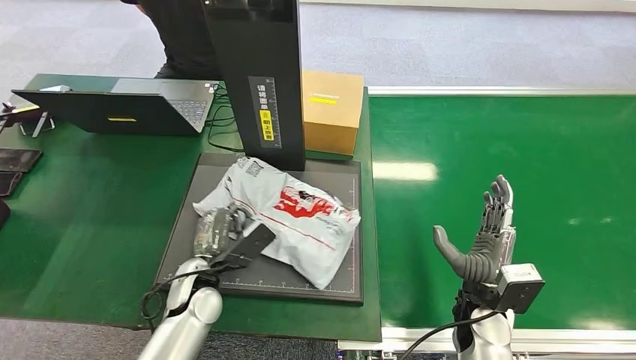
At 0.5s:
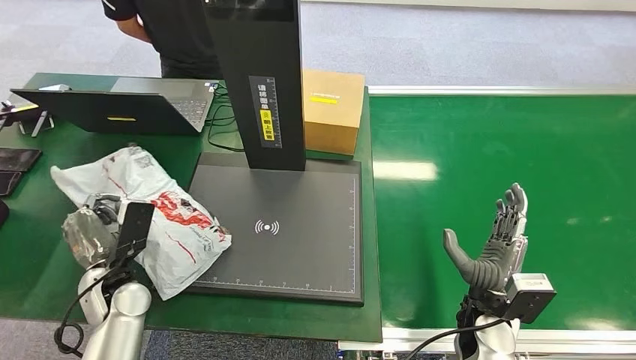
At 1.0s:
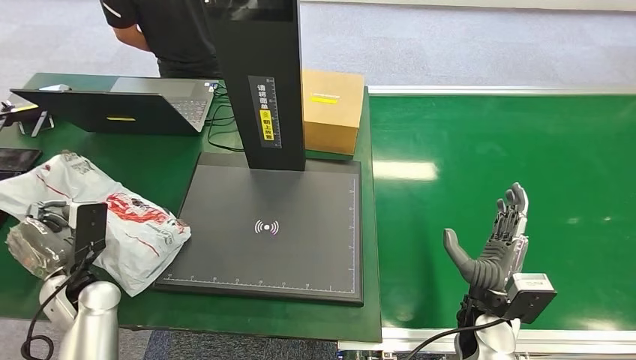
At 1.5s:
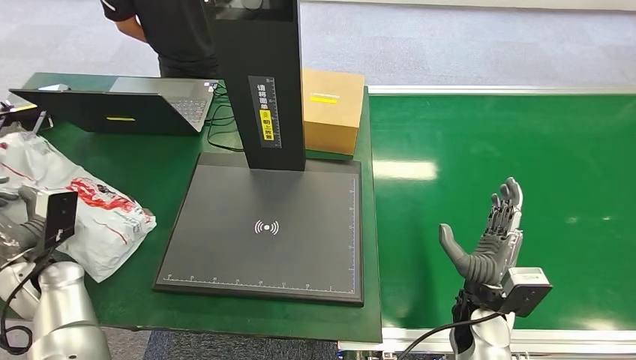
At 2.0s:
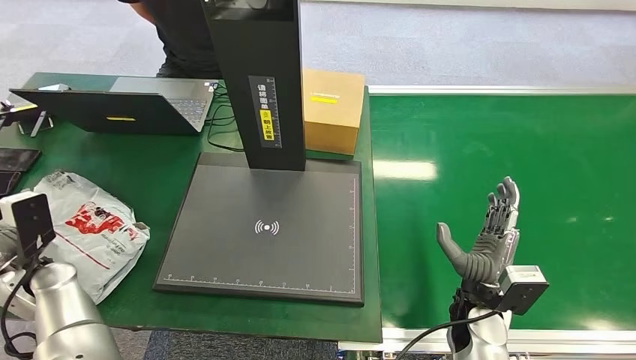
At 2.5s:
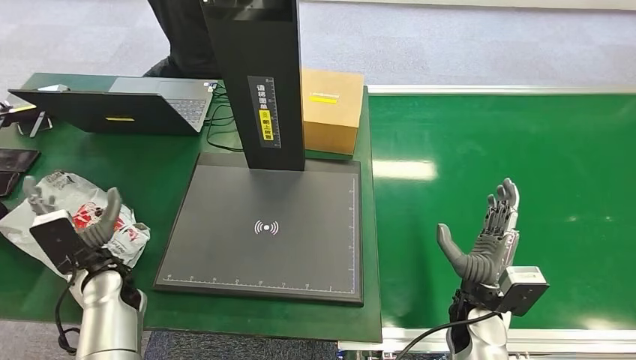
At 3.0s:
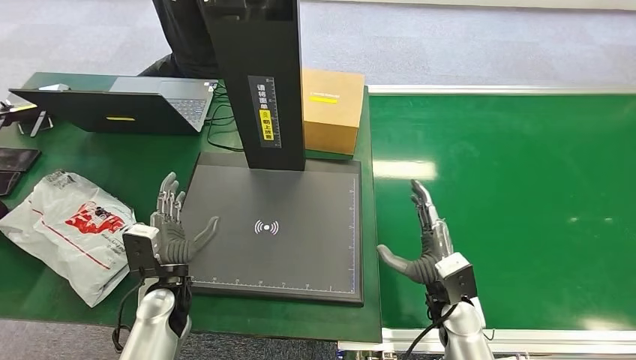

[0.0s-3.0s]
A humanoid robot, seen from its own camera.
Step, 1.0s to 3.0s: Place the package into the parcel locker.

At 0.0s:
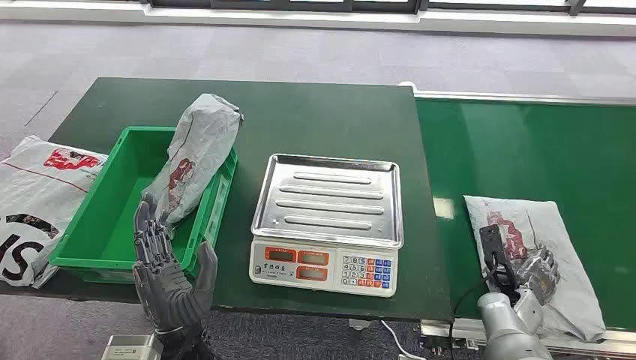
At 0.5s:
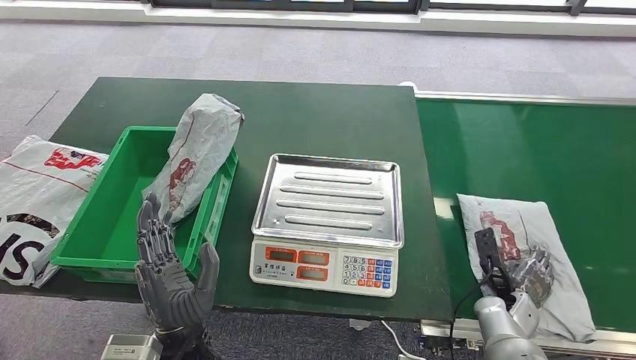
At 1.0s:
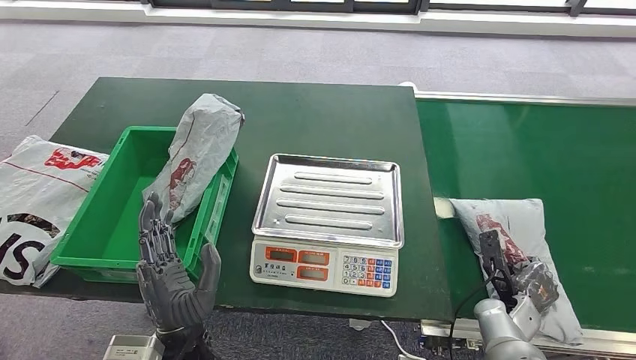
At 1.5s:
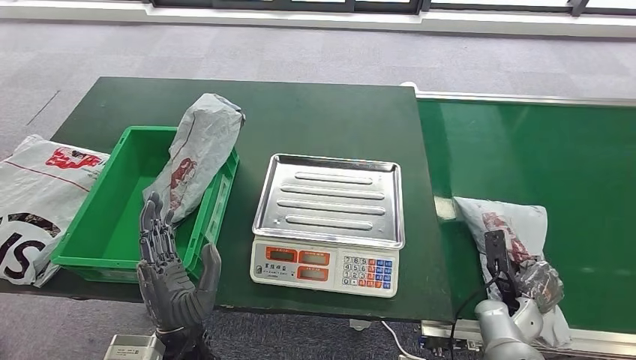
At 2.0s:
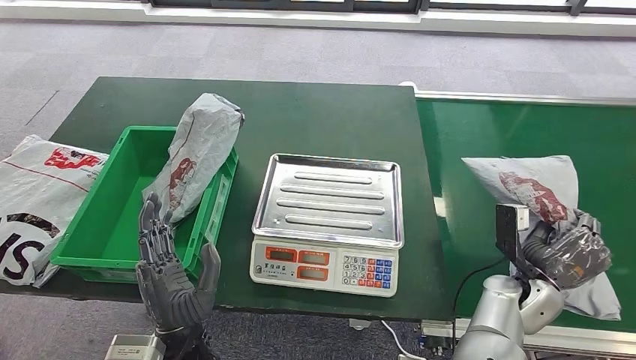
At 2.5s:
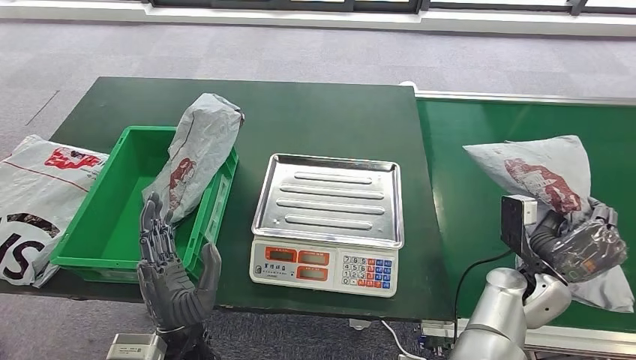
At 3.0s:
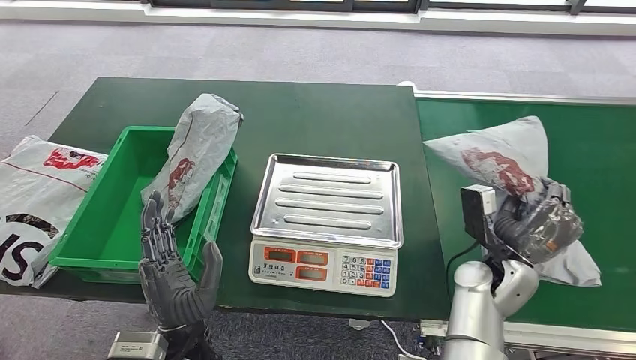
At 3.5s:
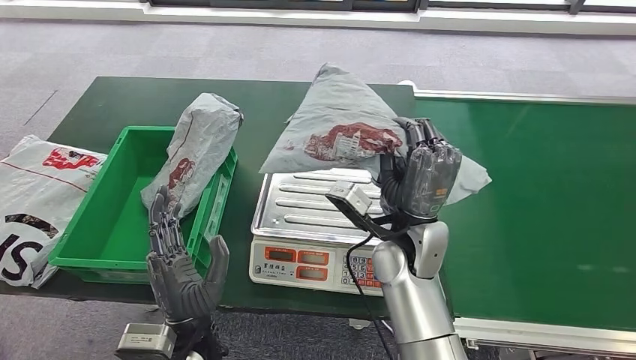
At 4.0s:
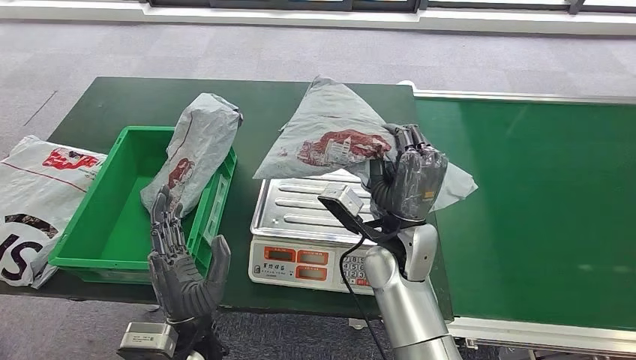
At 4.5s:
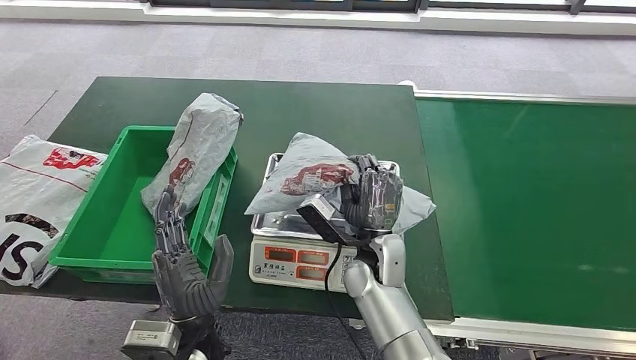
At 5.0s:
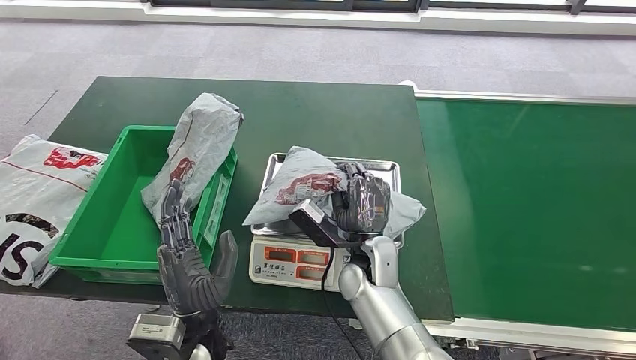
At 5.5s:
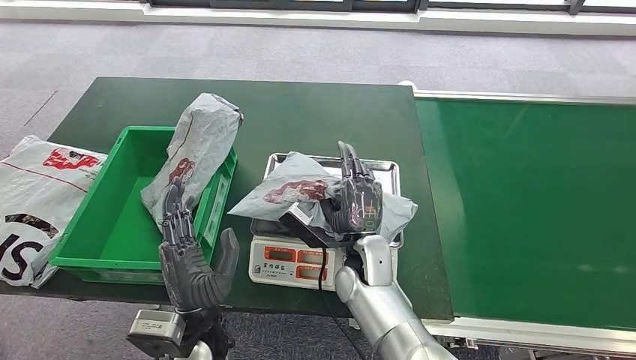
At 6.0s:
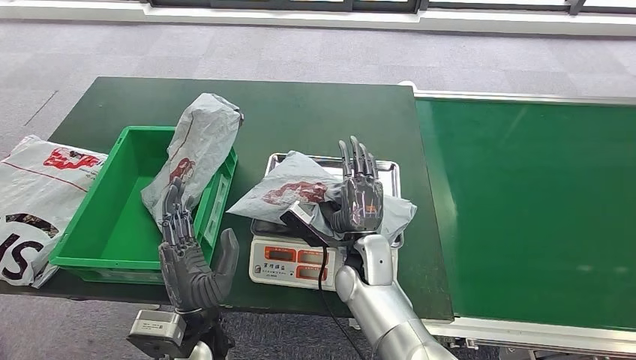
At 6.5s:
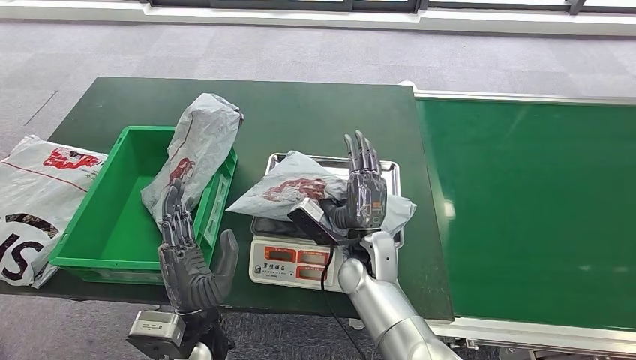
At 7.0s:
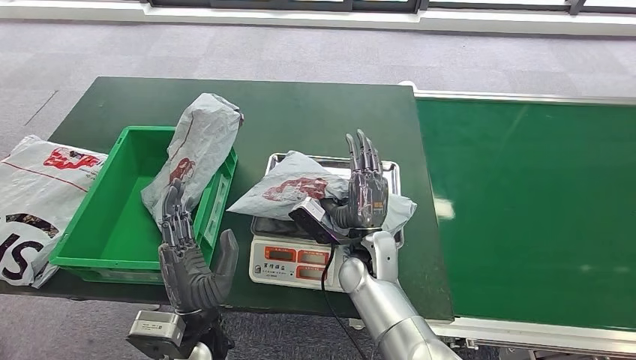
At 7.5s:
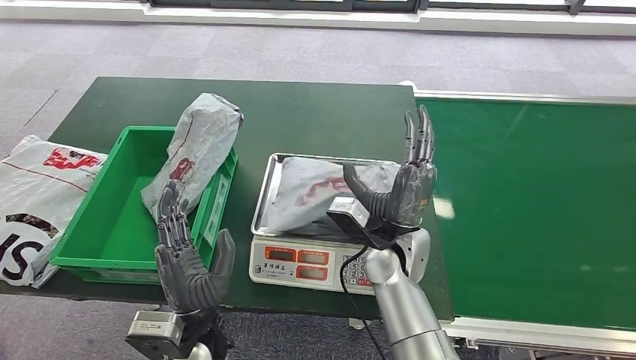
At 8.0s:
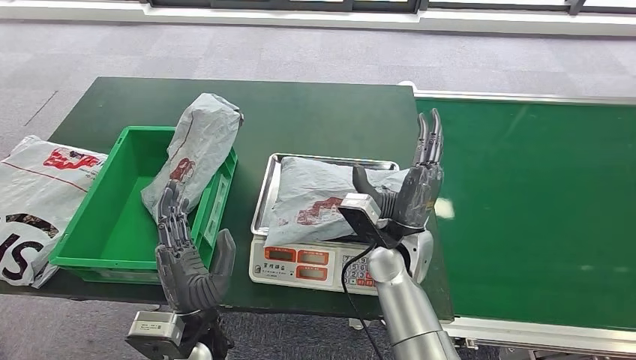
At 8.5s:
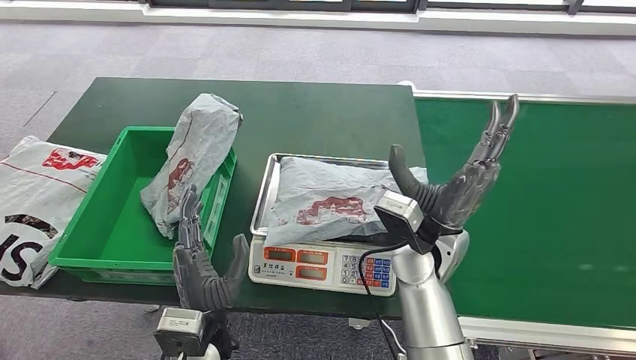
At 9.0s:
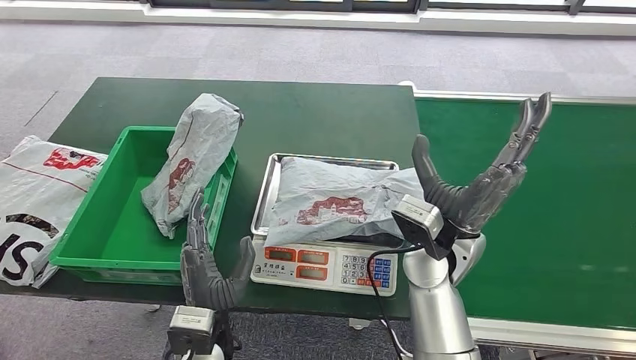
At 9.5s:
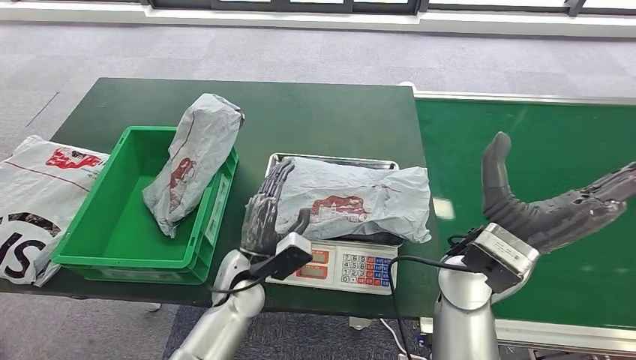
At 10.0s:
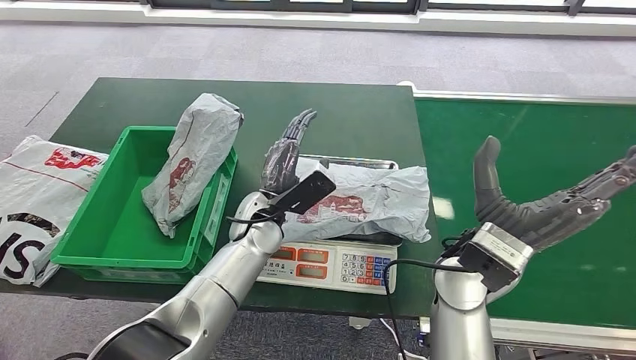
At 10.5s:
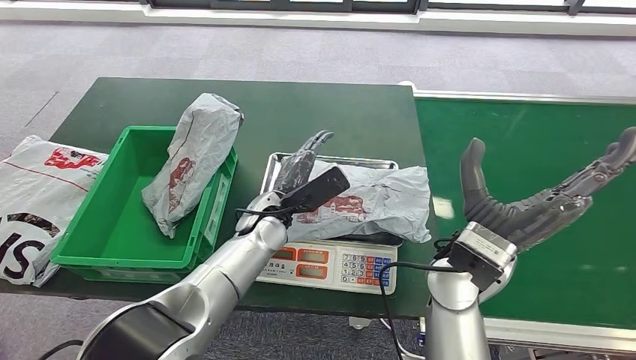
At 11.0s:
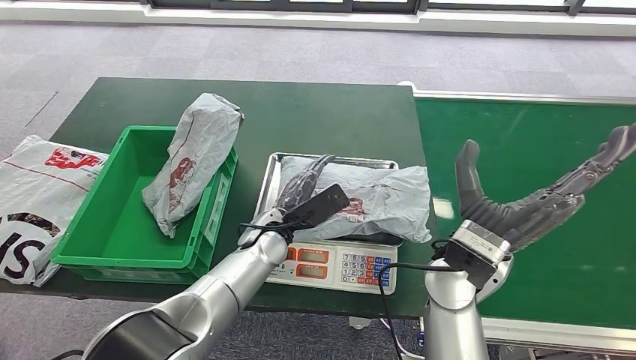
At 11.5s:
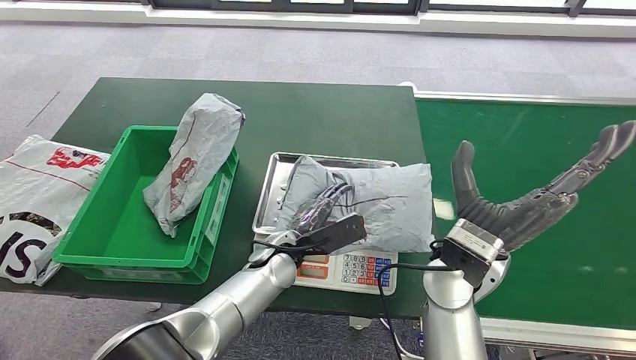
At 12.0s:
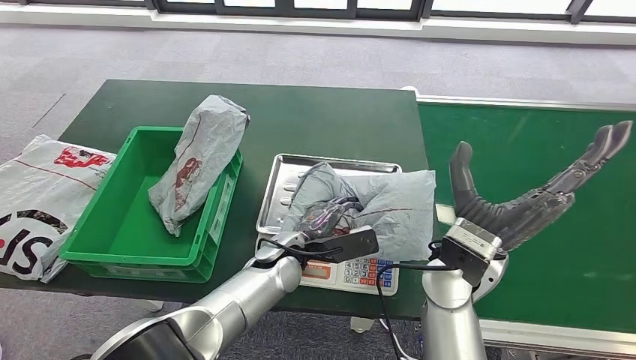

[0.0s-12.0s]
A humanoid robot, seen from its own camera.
Step, 0.0s to 2.0s: Pick up the package from the conveyor belt.
Step, 2.5s to 6.0s: Place the package onto the inbound machine.
4.0s to 6.0s: The right hand shifts some 10 cm downward.
6.0s to 8.0s: The right hand changes place by some 5 cm.

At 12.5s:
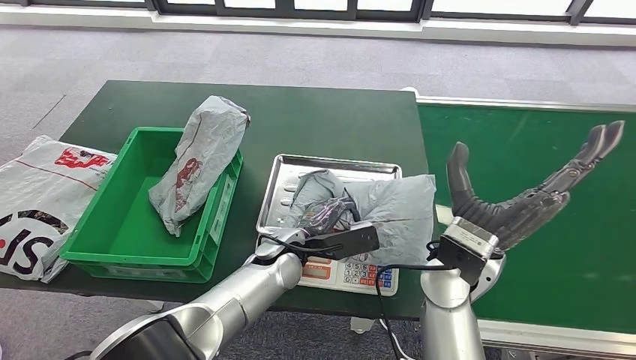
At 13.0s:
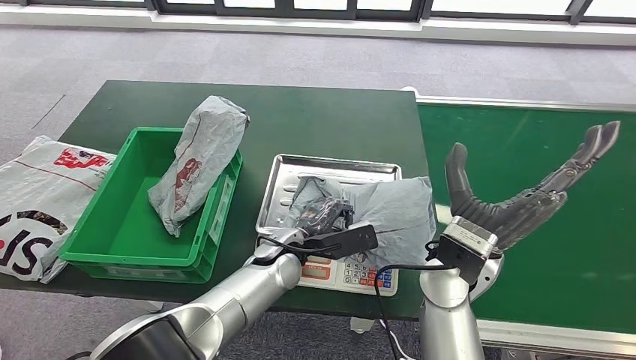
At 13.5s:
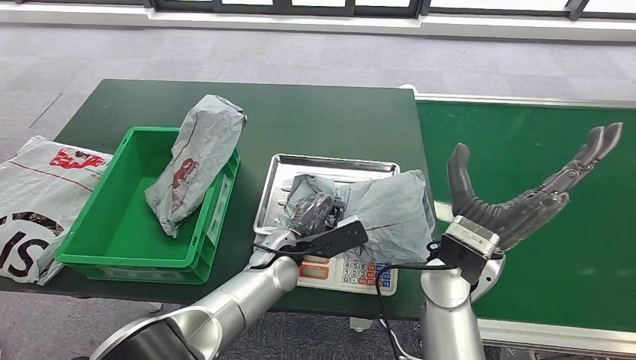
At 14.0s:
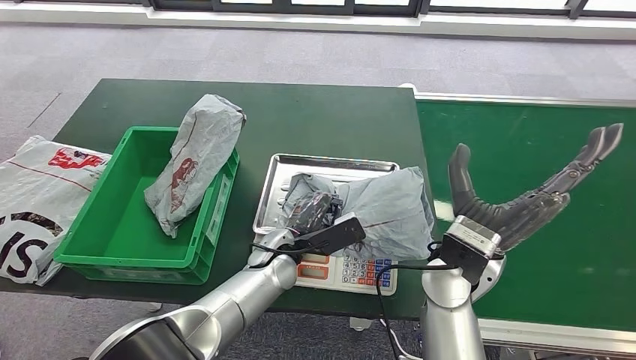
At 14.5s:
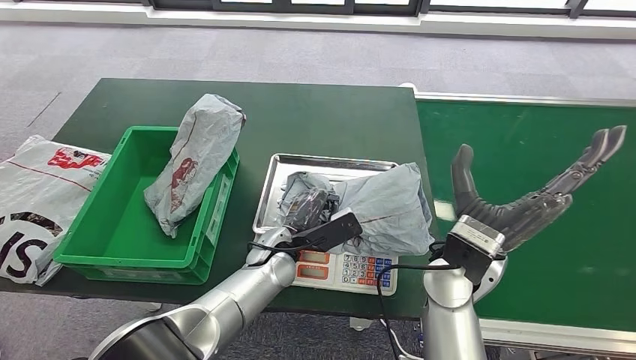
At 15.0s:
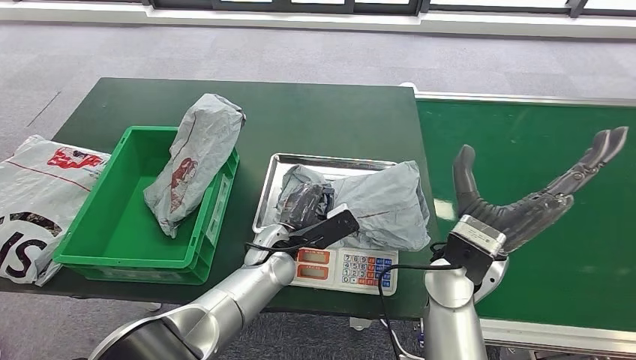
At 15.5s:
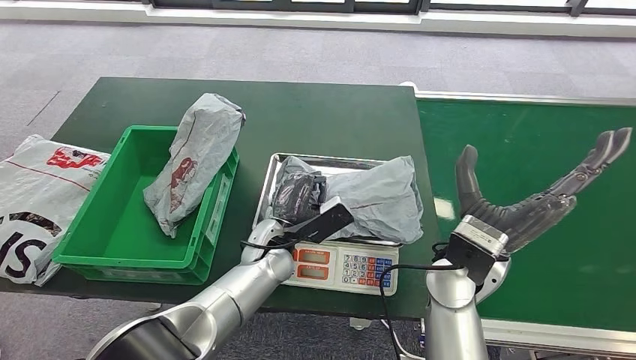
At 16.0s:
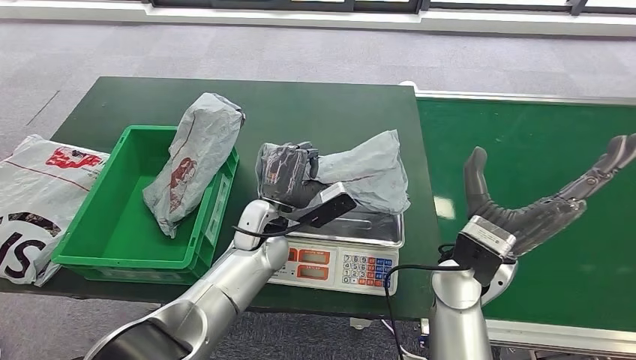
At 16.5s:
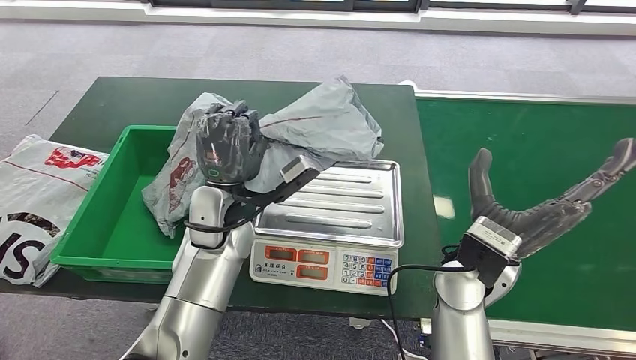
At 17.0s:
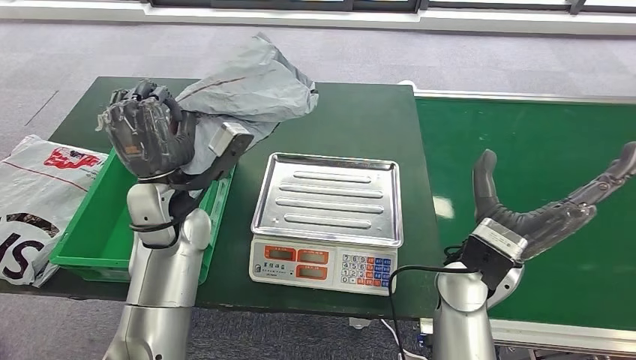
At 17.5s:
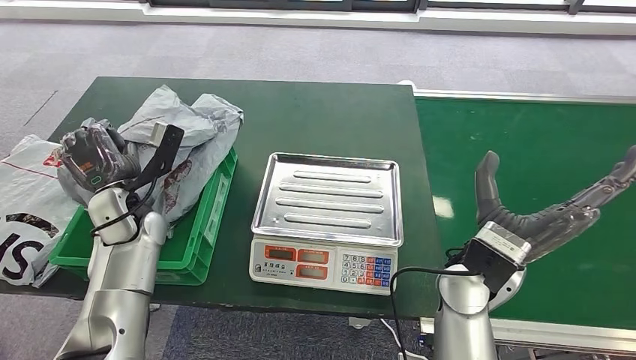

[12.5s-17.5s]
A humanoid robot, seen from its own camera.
Step, 12.5s to 16.0s: Pick up the package from the inbound machine.
Step, 16.5s to 17.5s: Place the package into the parcel locker.
